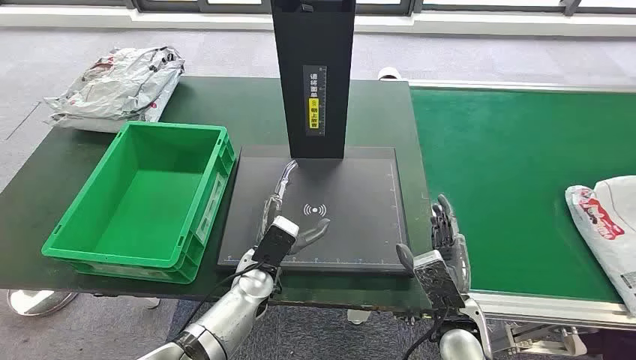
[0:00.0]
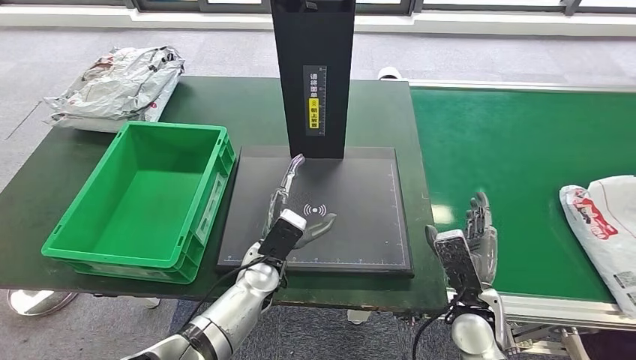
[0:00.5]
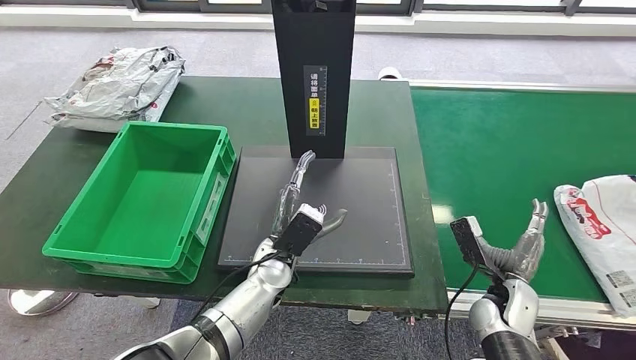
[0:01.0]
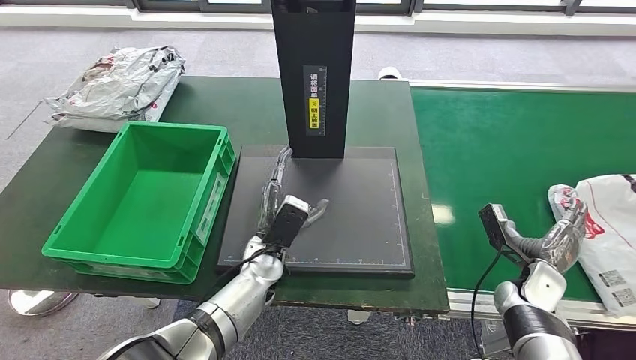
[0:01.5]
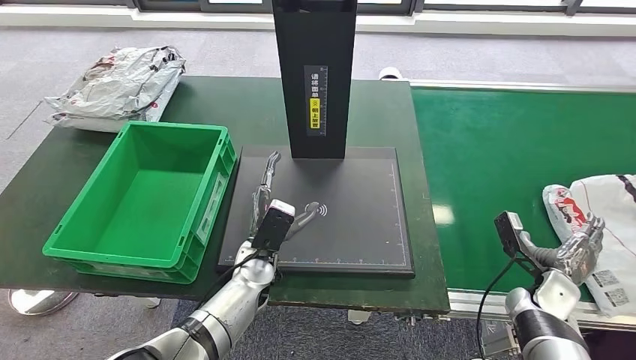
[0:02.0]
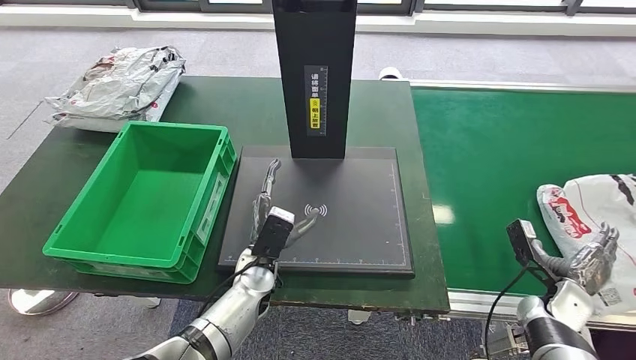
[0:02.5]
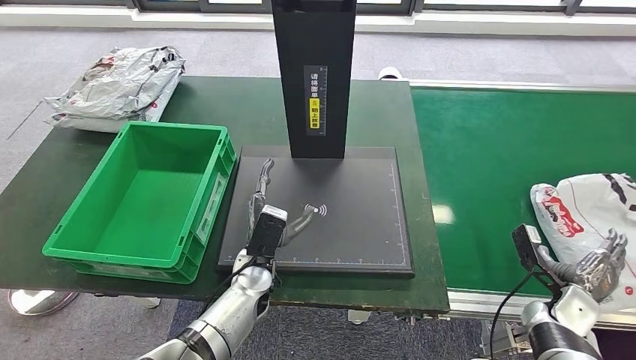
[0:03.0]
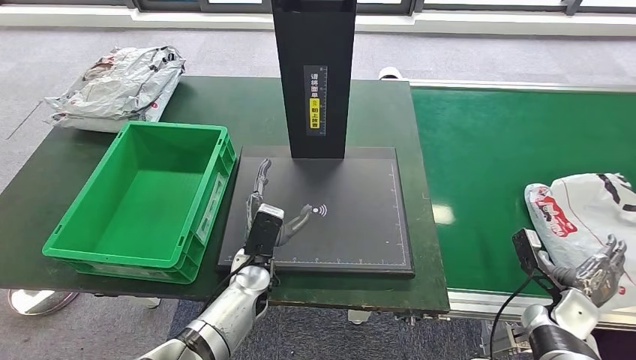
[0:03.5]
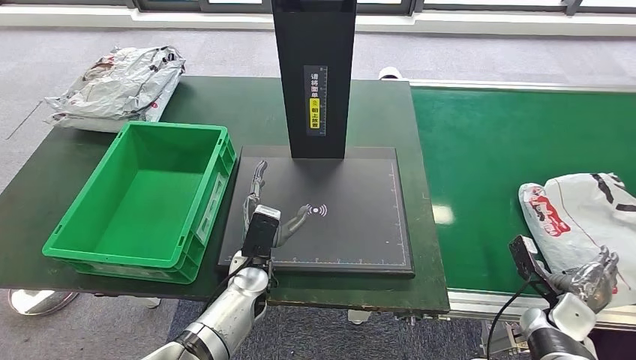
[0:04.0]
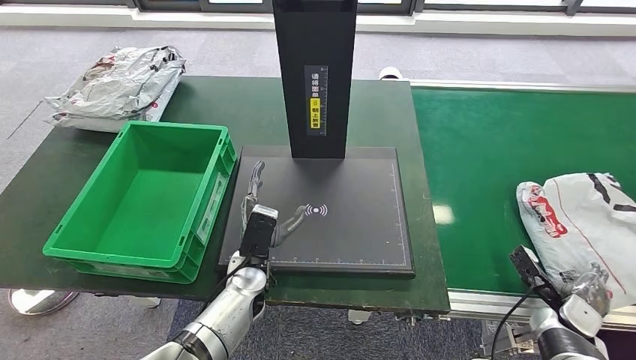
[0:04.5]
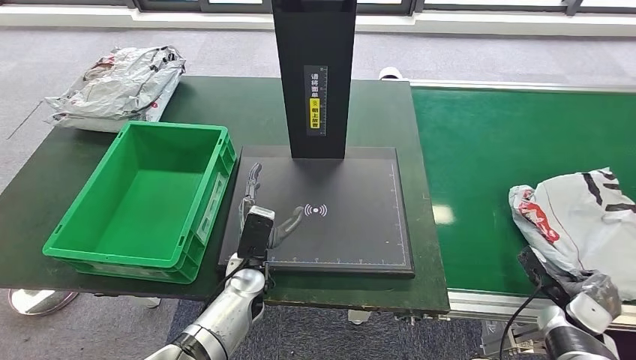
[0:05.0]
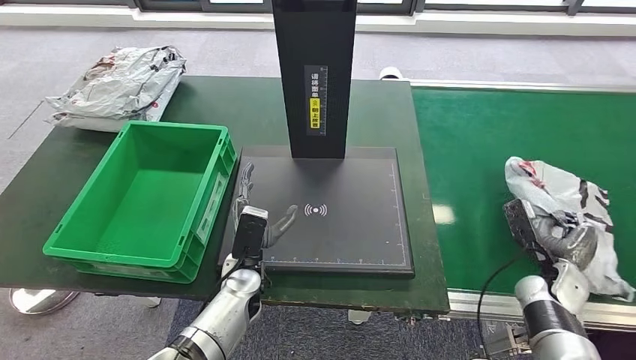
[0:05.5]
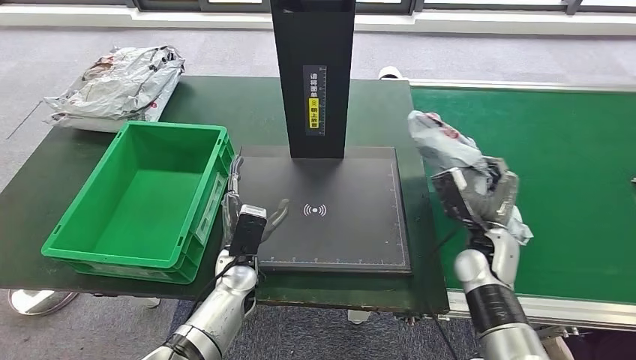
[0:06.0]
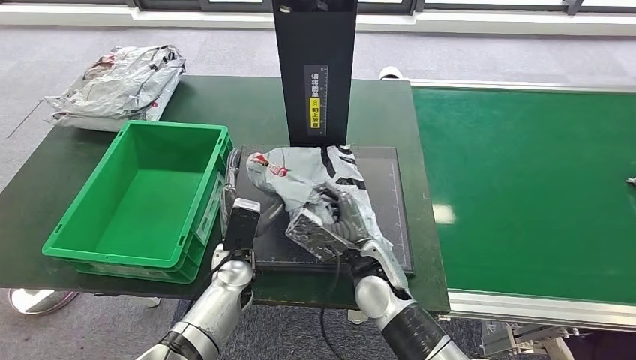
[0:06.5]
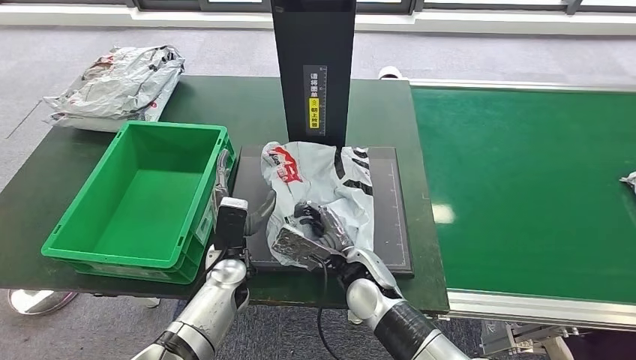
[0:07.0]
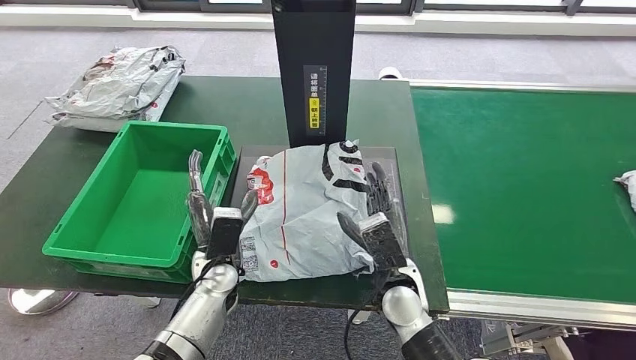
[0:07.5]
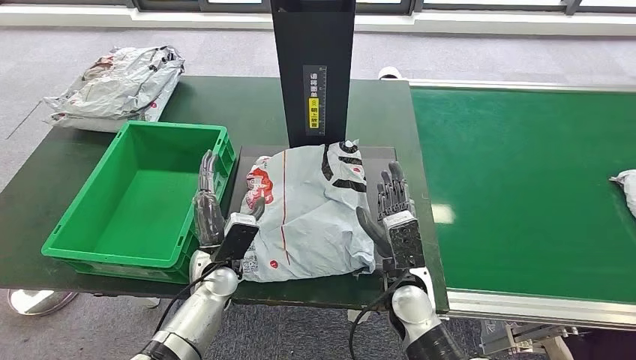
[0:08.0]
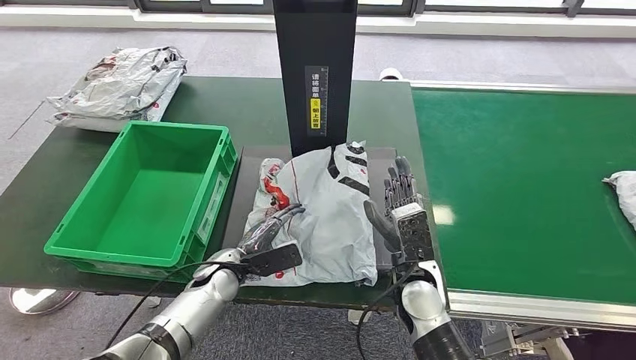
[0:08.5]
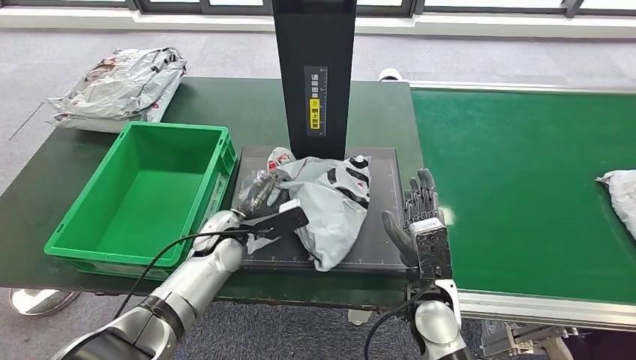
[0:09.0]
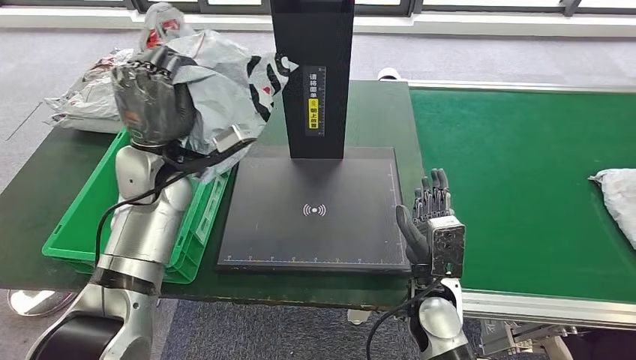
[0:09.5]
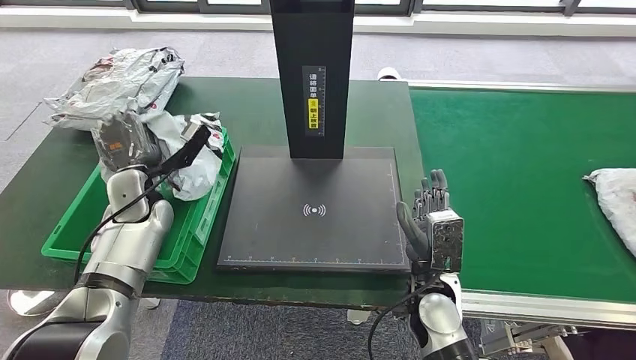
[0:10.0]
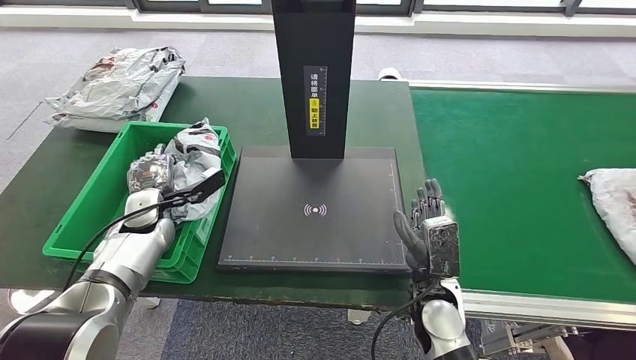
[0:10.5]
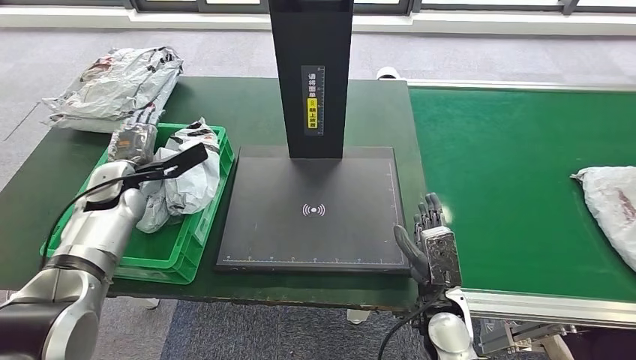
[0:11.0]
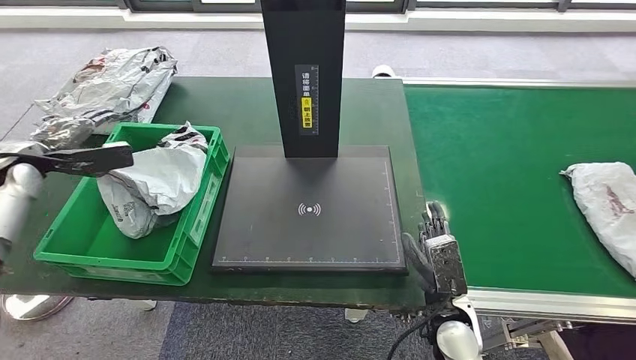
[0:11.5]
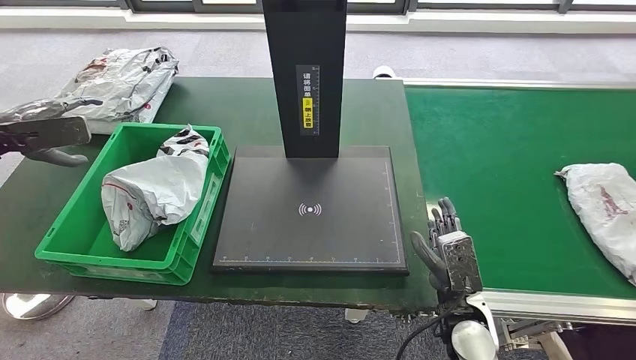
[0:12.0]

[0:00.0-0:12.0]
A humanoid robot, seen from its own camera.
Step, 0:00.0 to 0:05.5: Take the parcel off the conveyor belt.
Step, 0:06.0 to 0:07.5: Place the parcel onto the inbound machine.
Step, 0:08.0 to 0:10.0: Pick up the parcel from the inbound machine.
Step, 0:10.5 to 0:11.5: Put the parcel inside the courier box.
0:02.0 to 0:04.0: The right hand shifts by approximately 5 cm.

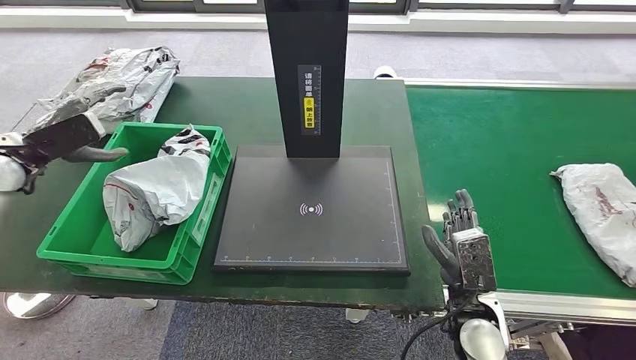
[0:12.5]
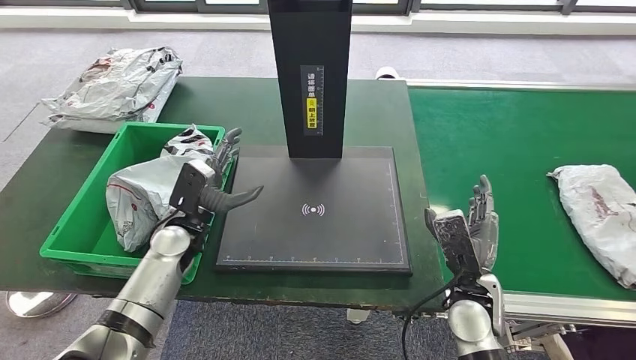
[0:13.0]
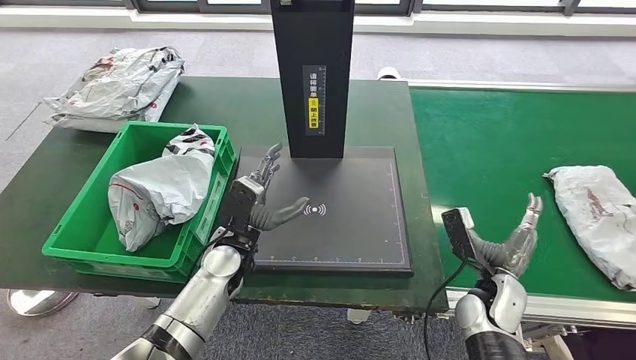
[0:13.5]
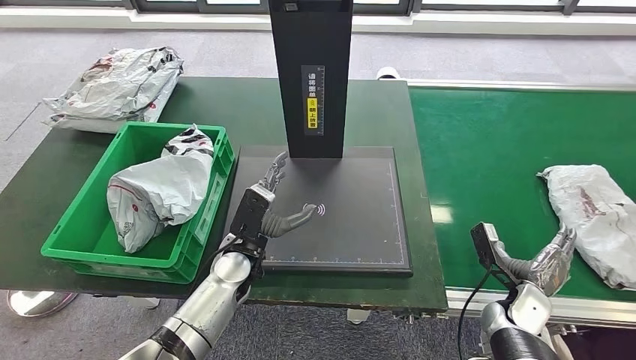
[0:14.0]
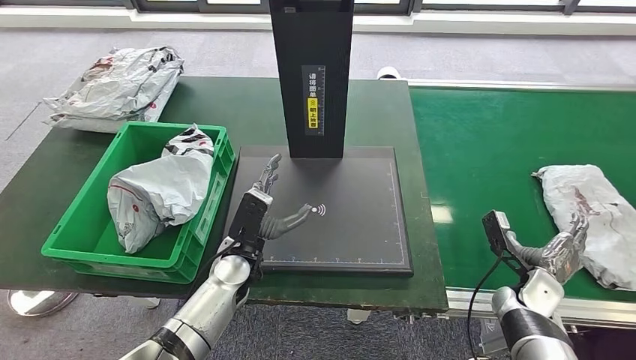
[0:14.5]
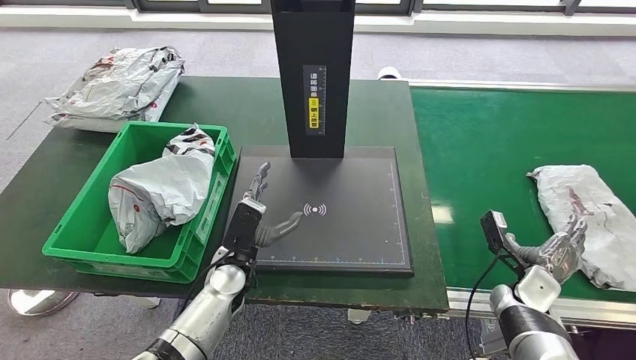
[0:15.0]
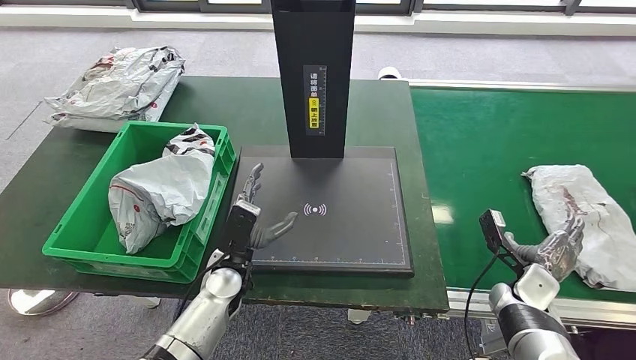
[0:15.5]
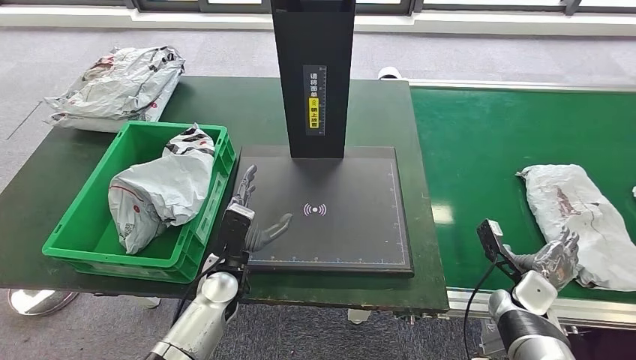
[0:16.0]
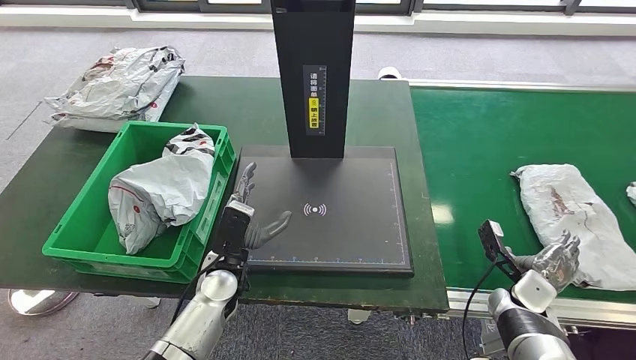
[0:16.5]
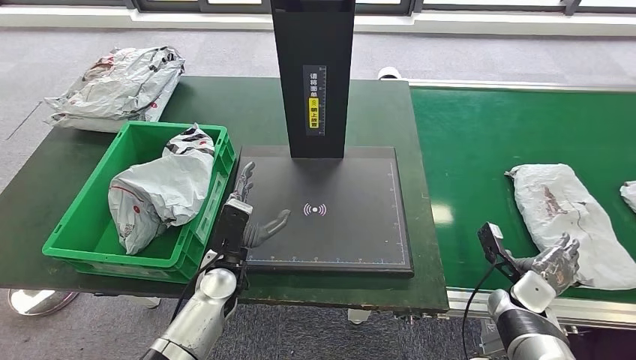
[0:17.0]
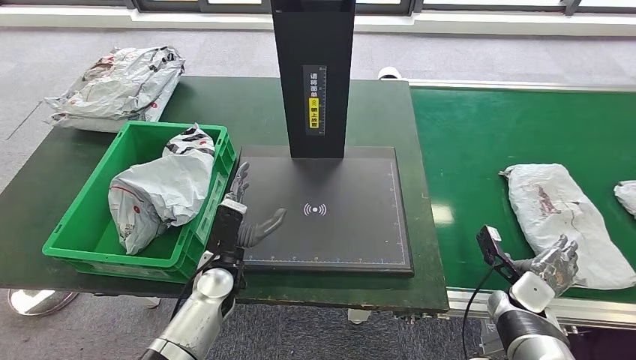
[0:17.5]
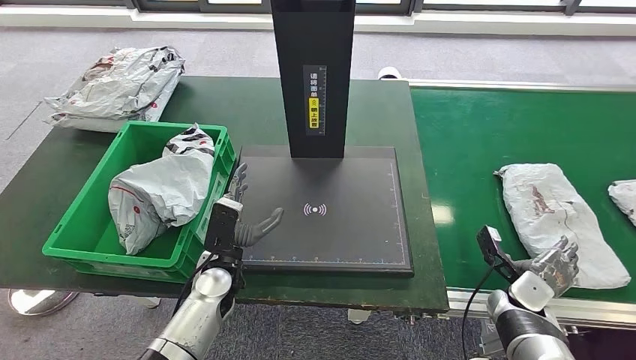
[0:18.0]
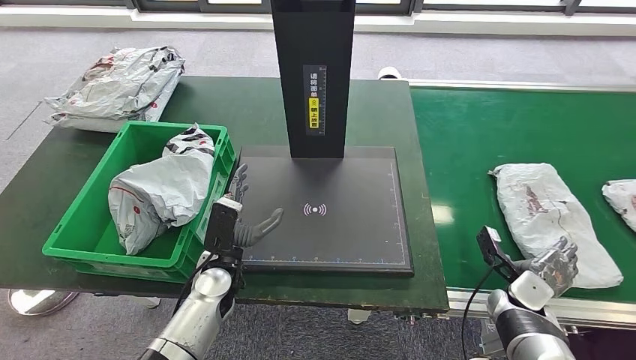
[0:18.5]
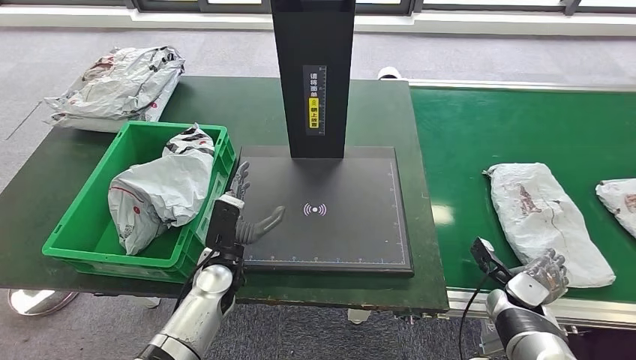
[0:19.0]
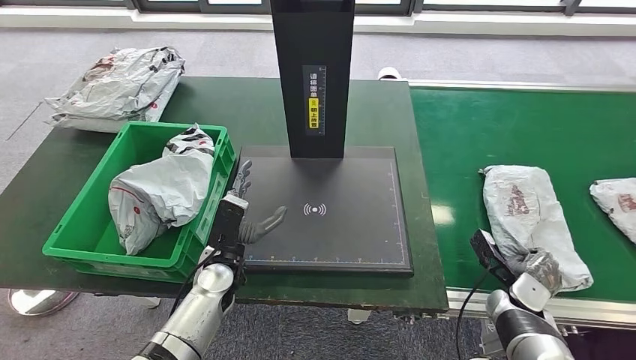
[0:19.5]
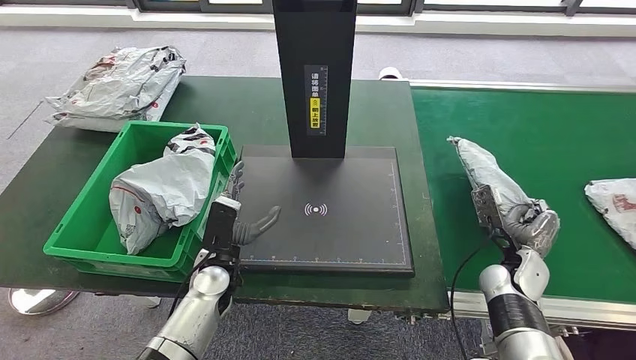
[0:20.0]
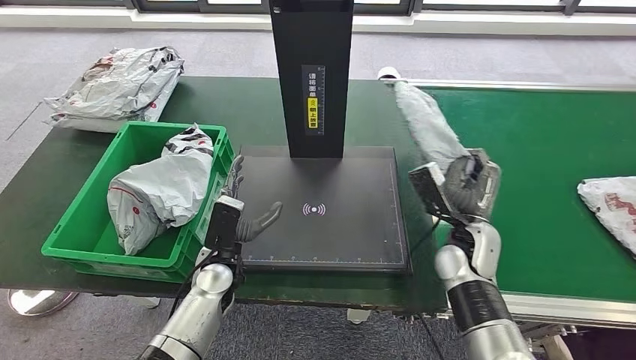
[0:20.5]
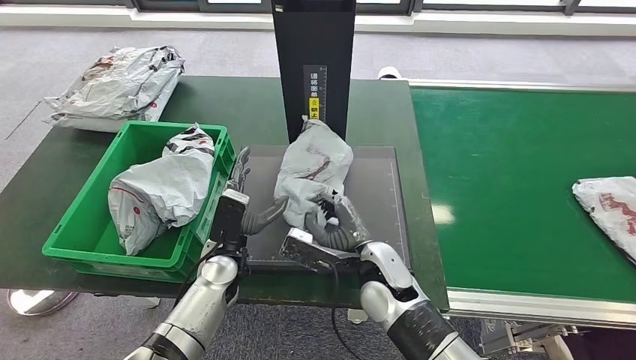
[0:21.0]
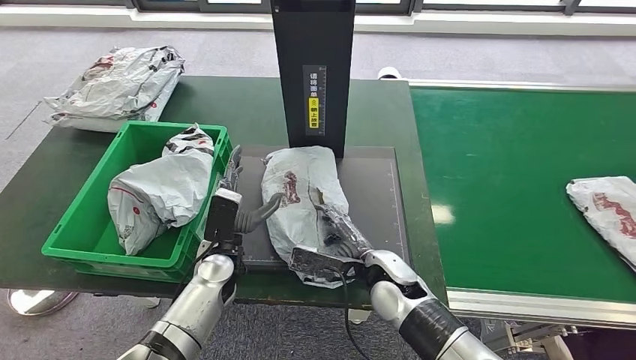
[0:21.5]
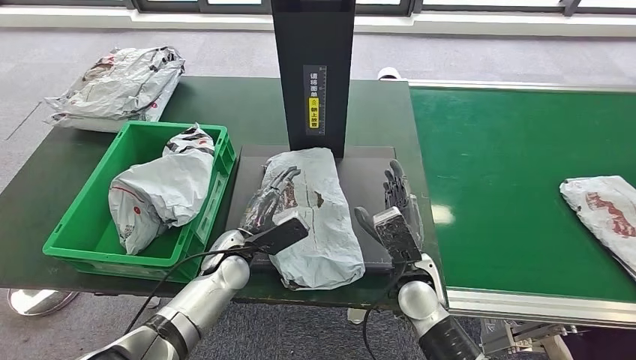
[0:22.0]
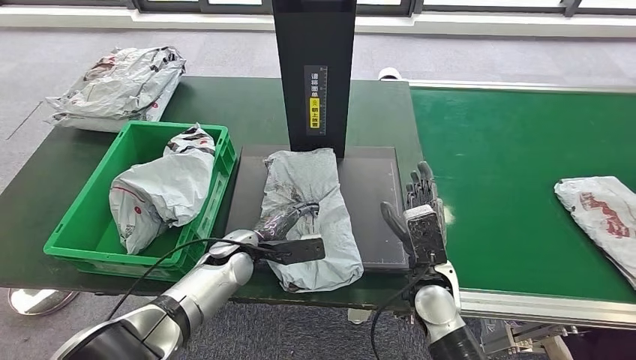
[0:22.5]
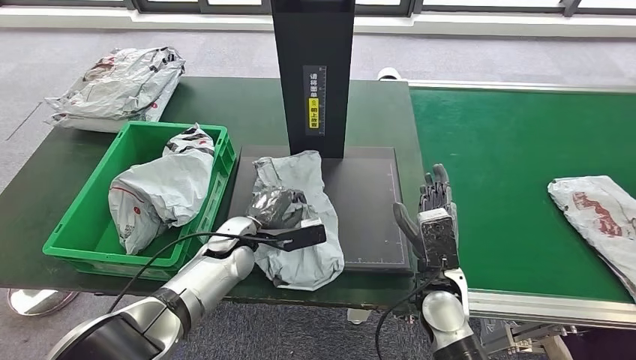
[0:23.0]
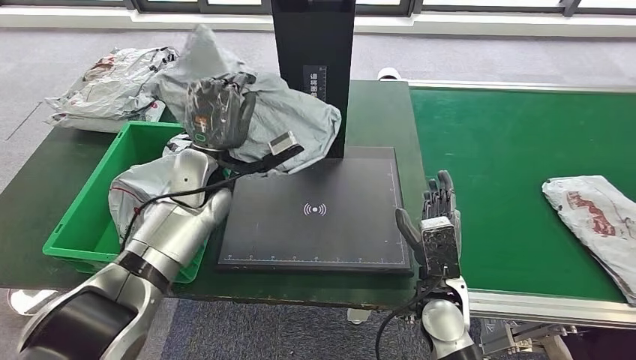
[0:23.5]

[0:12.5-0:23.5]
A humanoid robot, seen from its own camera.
Step, 0:14.0 to 0:20.5: Pick up the parcel from the conveyor belt.
Step, 0:21.0 to 0:22.0: Place the parcel onto the inbound machine.
0:14.5 to 0:16.0: The hands make only small movements.
0:16.0 to 0:18.0: There are only small adjustments of the hands.
0:18.0 to 0:20.0: The right hand travels upward by about 5 cm.
